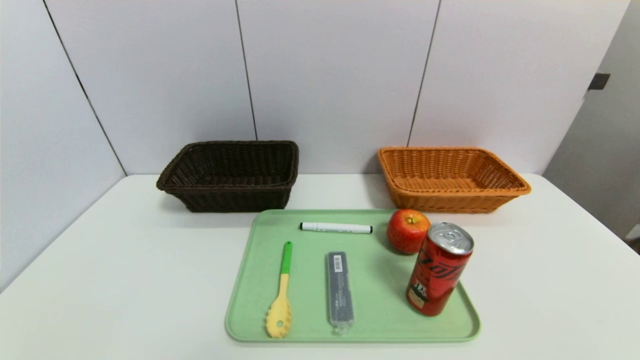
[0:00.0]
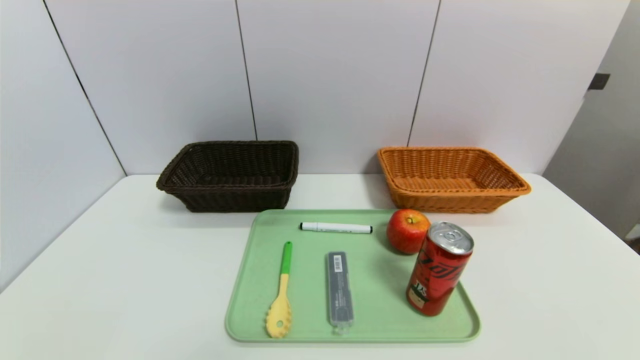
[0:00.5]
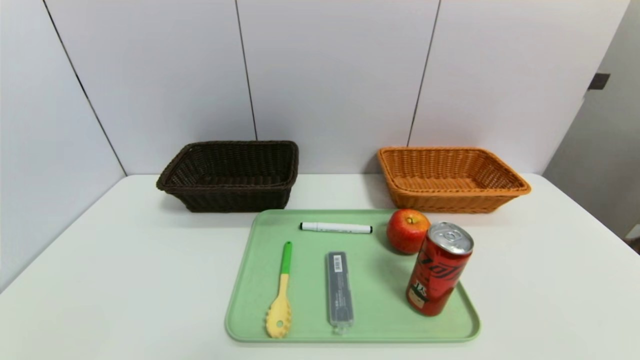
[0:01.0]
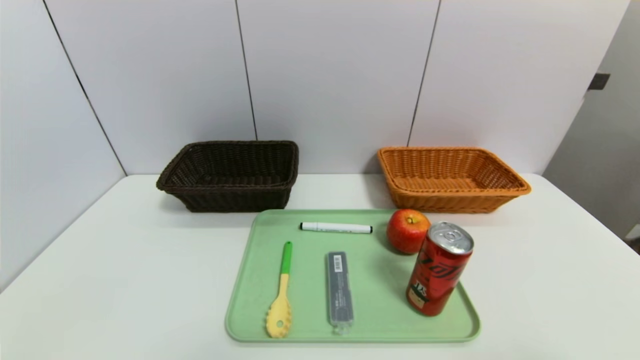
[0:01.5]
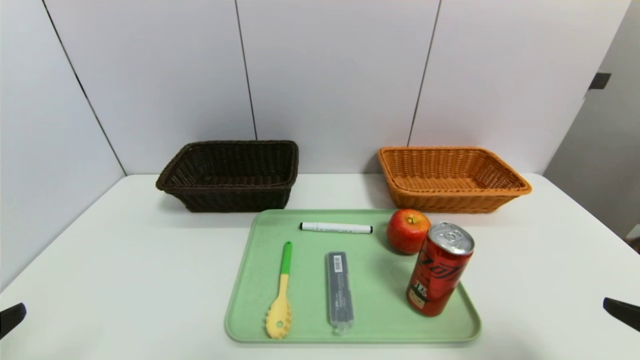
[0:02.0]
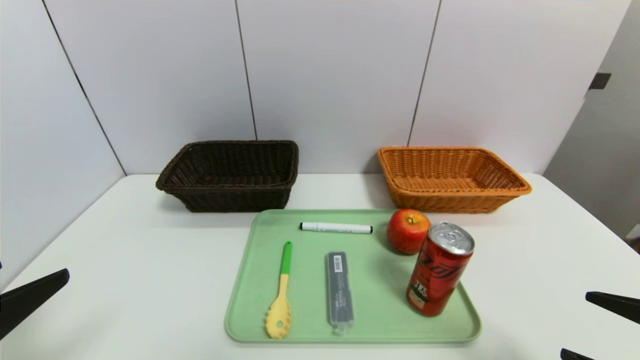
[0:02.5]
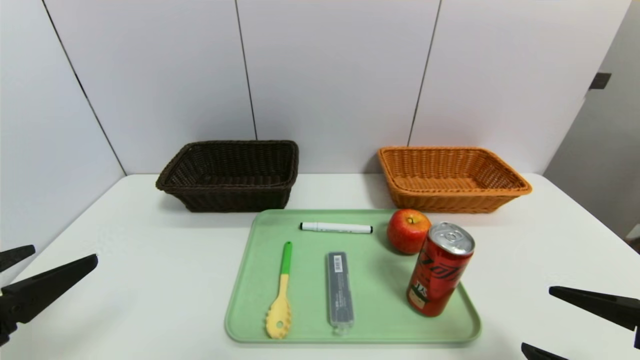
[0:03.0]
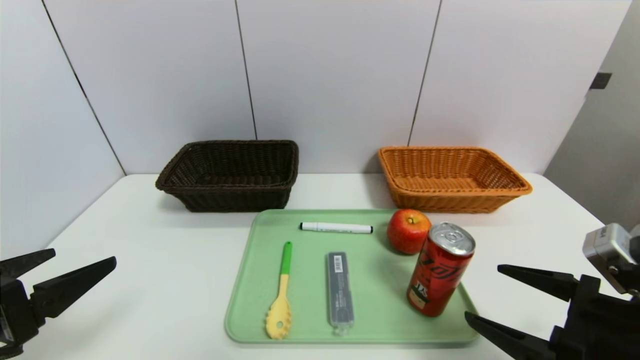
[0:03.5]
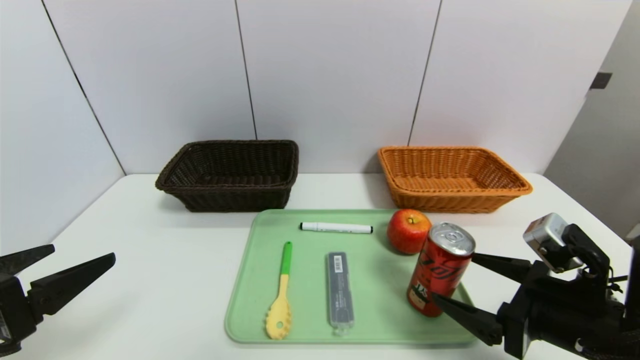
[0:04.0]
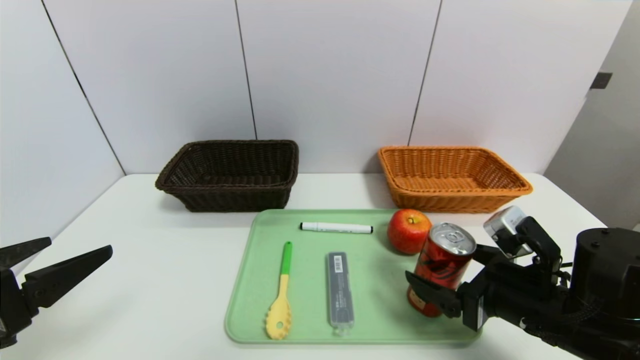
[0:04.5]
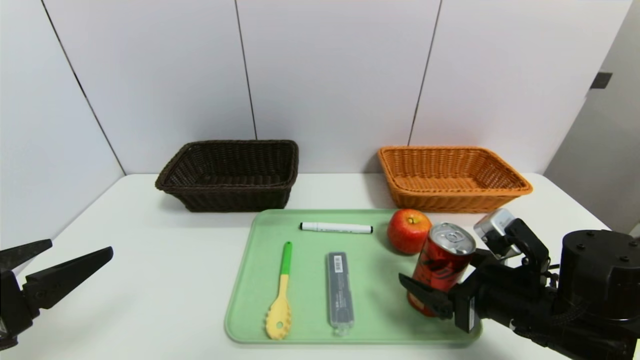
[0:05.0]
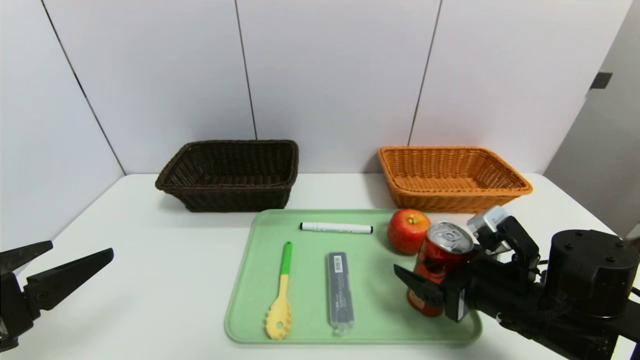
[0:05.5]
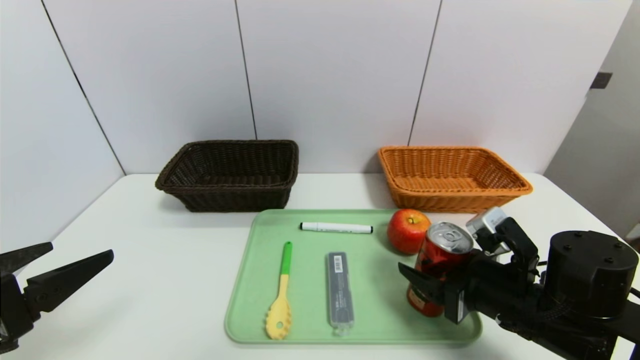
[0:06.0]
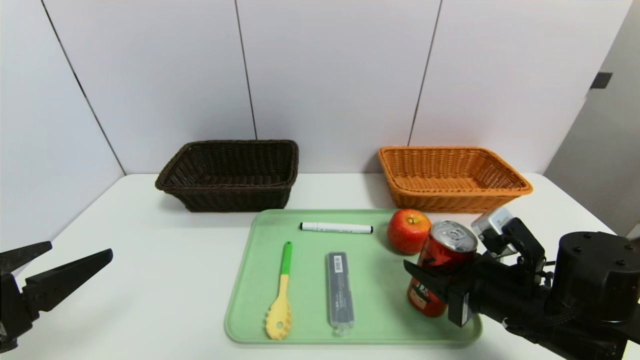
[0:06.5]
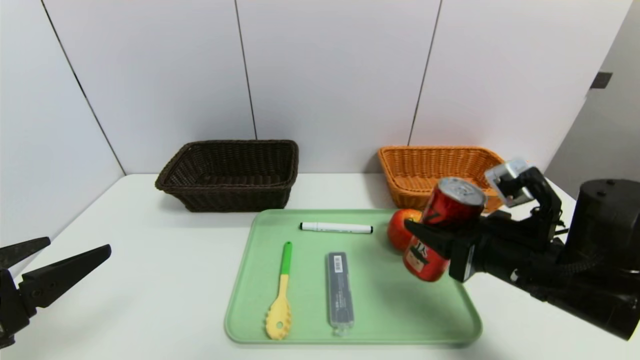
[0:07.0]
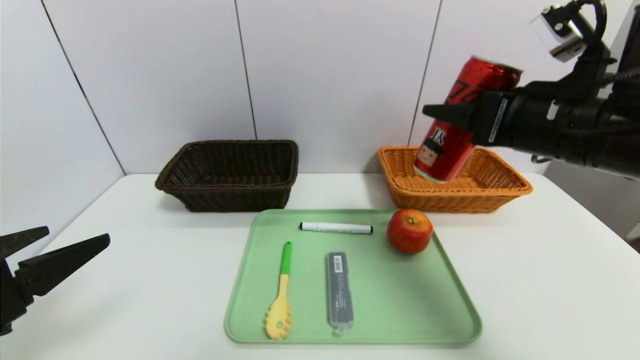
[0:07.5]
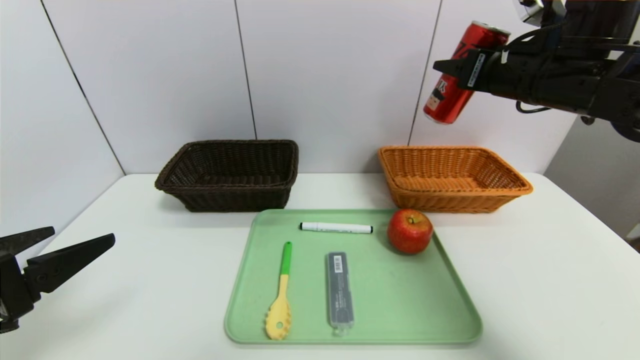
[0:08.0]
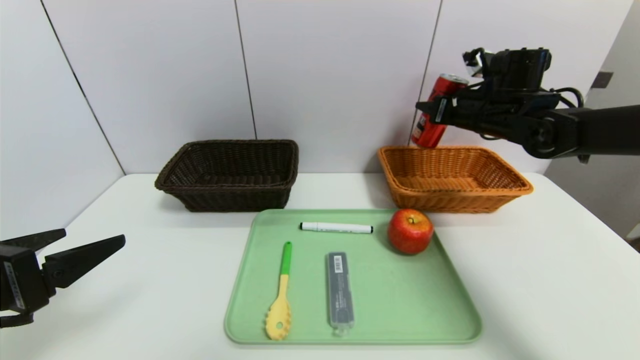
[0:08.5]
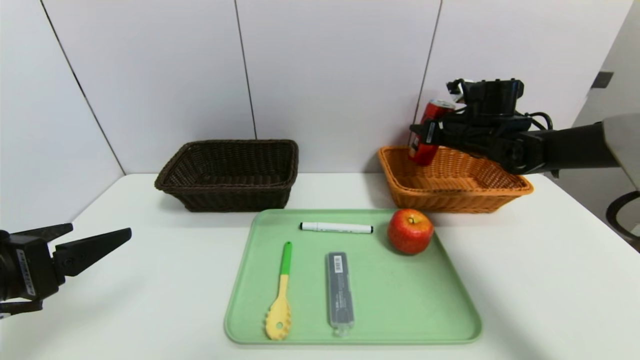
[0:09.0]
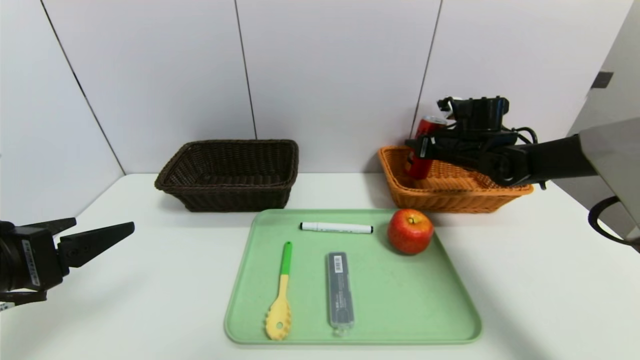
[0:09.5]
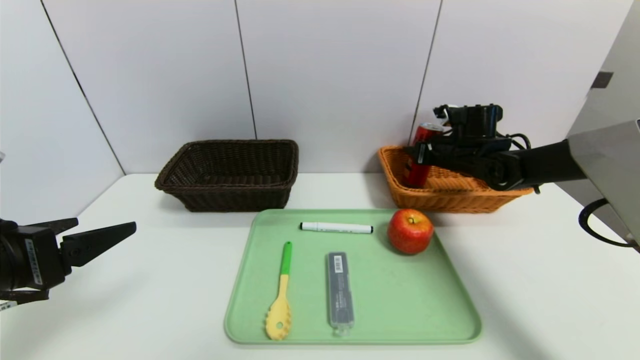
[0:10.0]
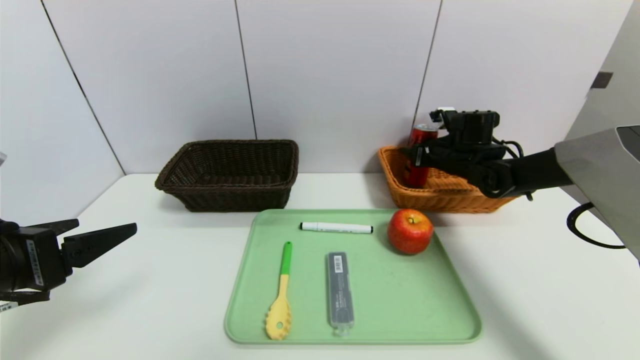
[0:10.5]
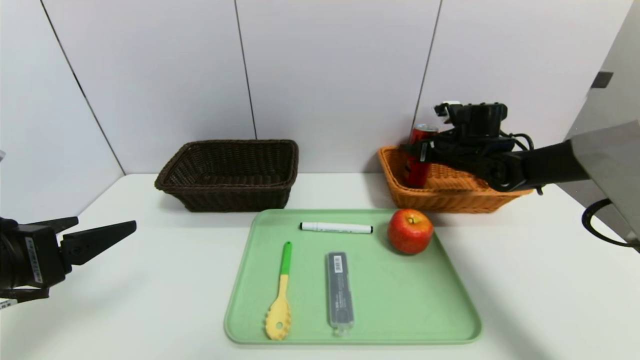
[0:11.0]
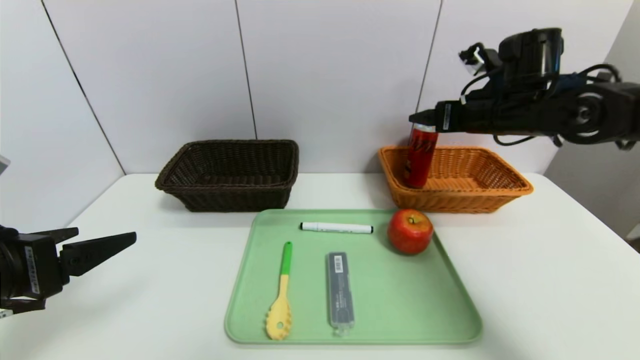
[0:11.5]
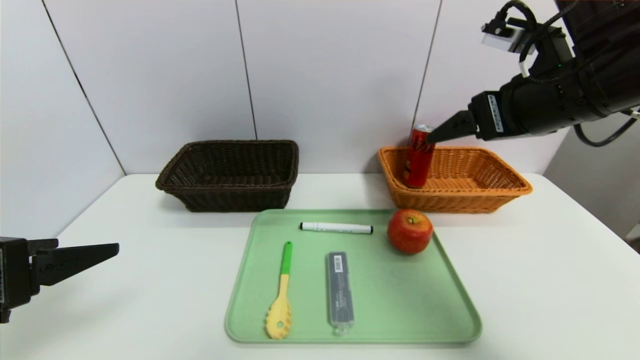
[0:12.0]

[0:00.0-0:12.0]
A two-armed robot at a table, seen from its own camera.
Task of the whole recording: place the food in the right basket with the right gripper, and place the non food items in the left basket with the left gripper.
Step, 0:00.0 to 0:11.0: Grasp the canned cola and put it in the right basket.
0:00.0 to 0:02.0: The right gripper is displaced upward and forward by about 15 cm.
0:02.0 to 0:04.0: The right gripper heads forward, downward and to the left, covering some 15 cm. Meanwhile the left gripper shifts approximately 5 cm forward.
0:04.0 to 0:06.0: The right gripper shifts by about 5 cm, and closes.
0:06.0 to 0:08.0: The right gripper travels upward and forward by roughly 25 cm, and closes its fingers.
0:08.0 to 0:10.0: The right gripper travels downward and forward by roughly 20 cm.
0:10.0 to 0:12.0: The right gripper goes roughly 25 cm backward and upward, and opens.

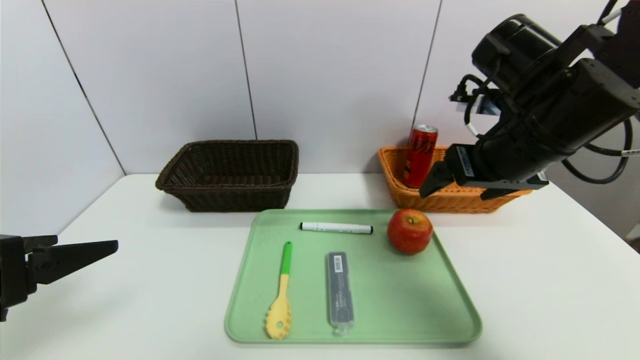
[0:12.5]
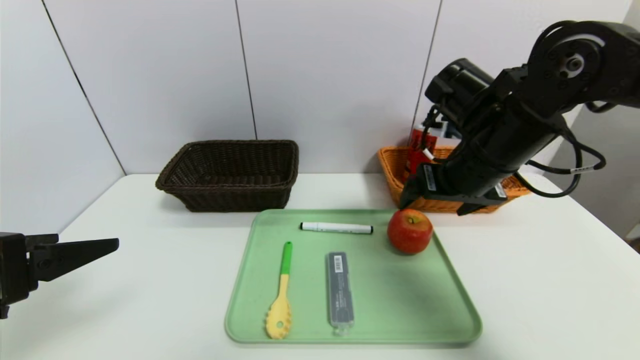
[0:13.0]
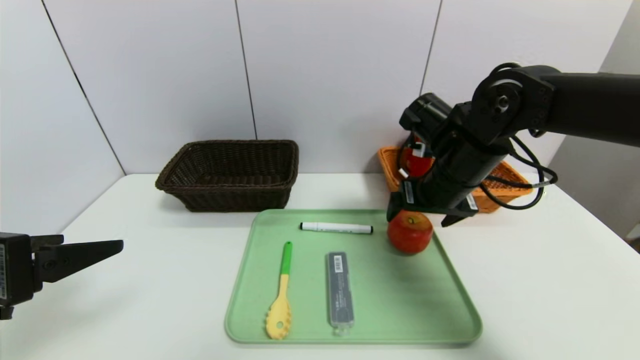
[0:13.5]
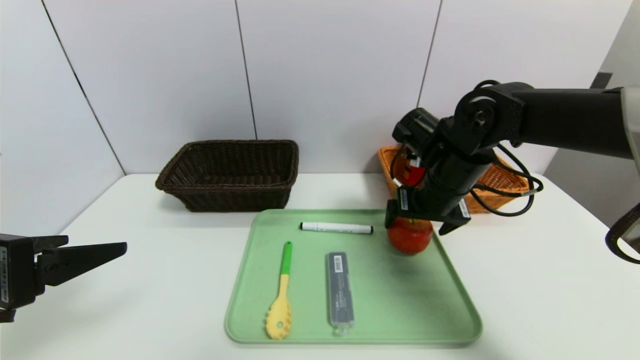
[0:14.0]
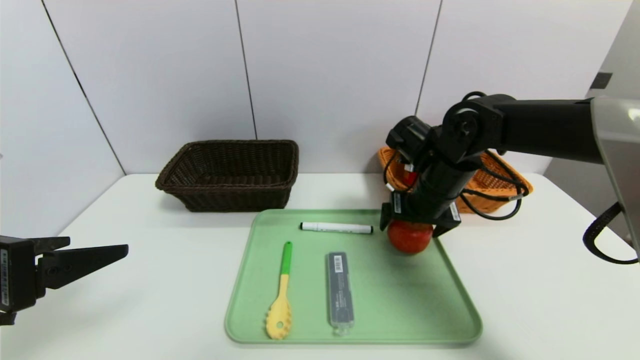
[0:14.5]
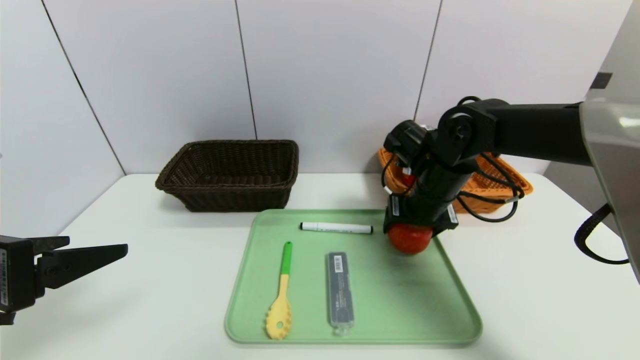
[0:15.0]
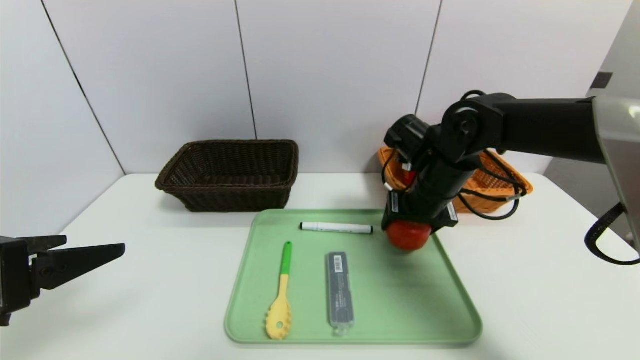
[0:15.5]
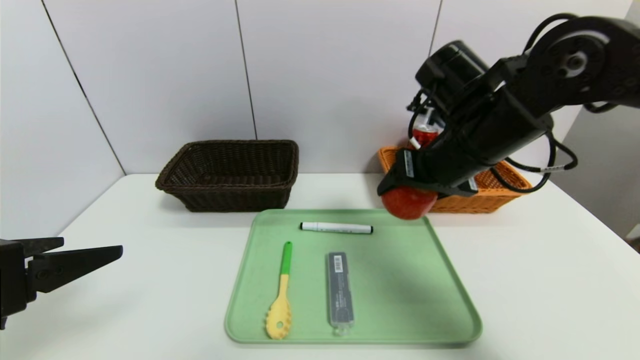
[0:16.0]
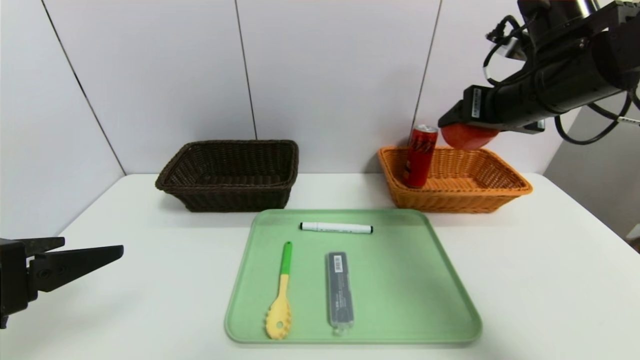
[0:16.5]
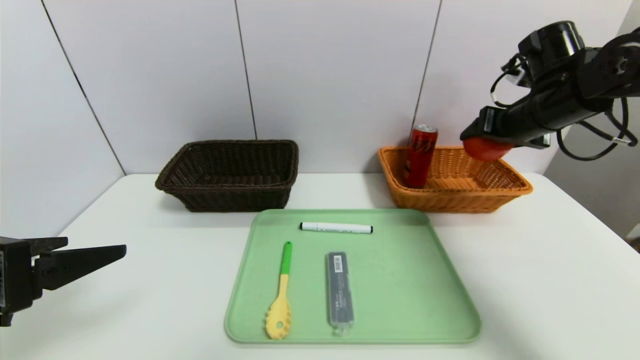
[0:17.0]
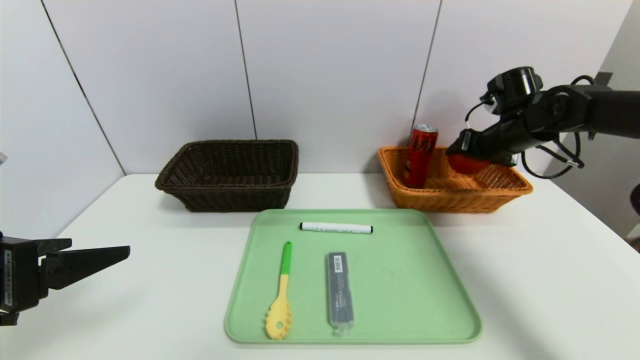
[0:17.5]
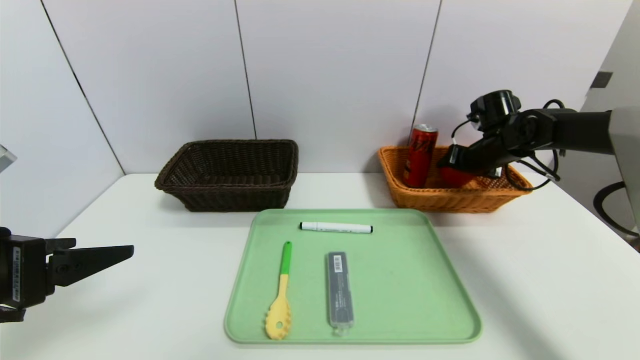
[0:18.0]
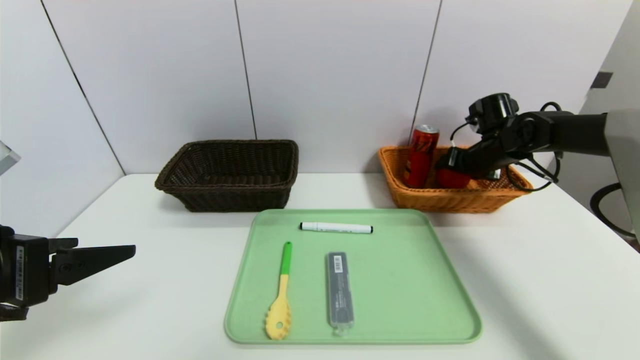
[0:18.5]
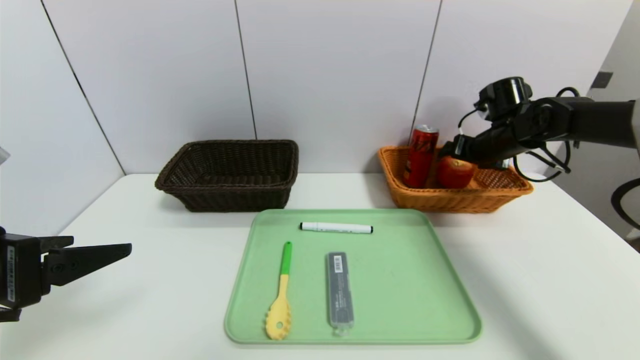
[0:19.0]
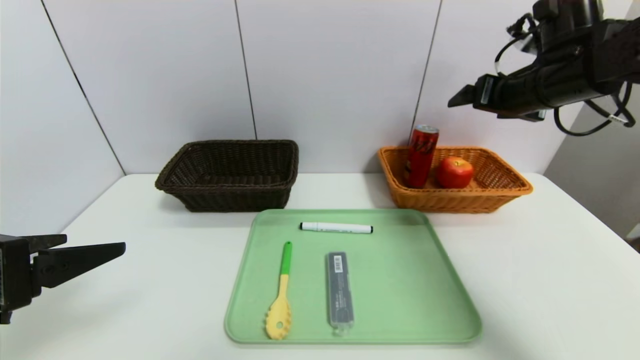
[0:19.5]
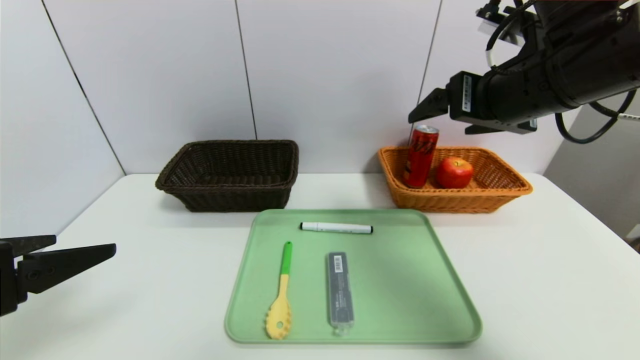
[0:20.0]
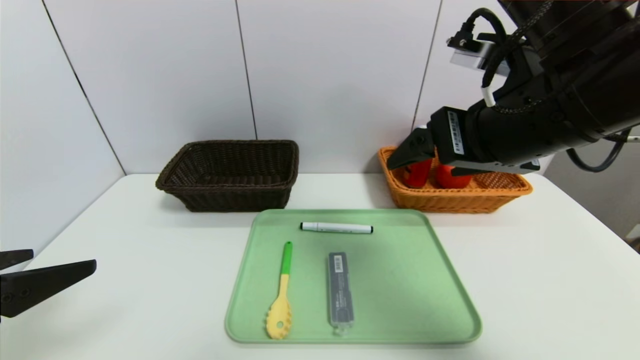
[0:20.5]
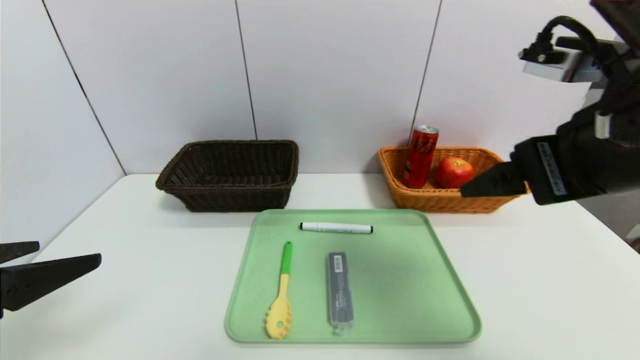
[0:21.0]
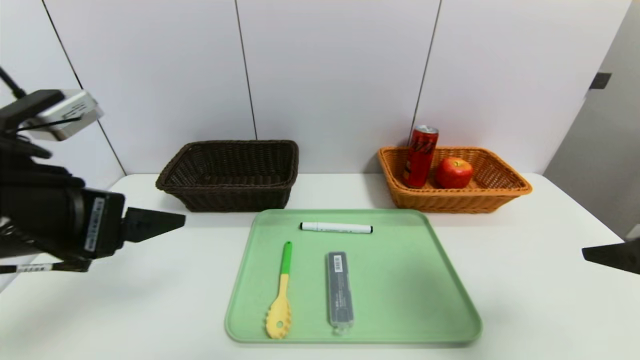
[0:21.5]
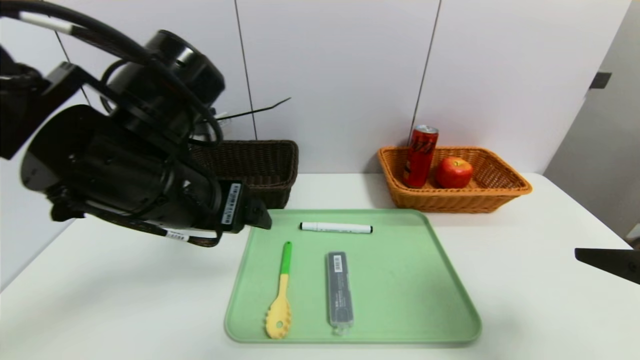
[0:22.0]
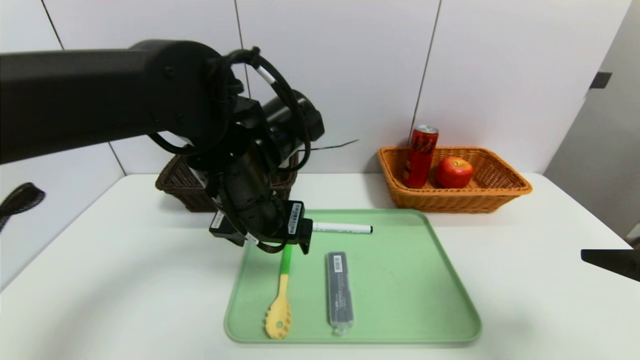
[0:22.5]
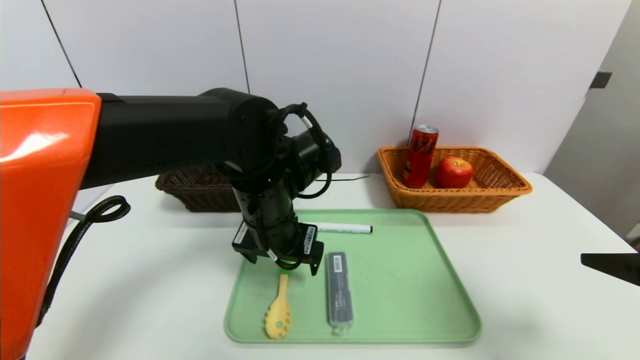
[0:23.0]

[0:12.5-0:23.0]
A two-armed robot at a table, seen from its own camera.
Task of the whole recording: place the food in the right basket with the right gripper, and place the non food items in the left basket with the left gripper.
Step, 0:12.5 to 0:19.0: Grasp the apple and put it in the right basket.
0:12.5 to 0:14.5: The right gripper travels downward and forward by roughly 15 cm.
0:14.5 to 0:16.5: The right gripper travels upward and to the right by roughly 15 cm, and closes up.
0:16.5 to 0:19.0: The right gripper travels forward, downward and to the right by some 20 cm, and opens its fingers.
0:19.0 to 0:21.0: The right gripper shifts some 30 cm backward and upward.
0:21.0 to 0:23.0: The left gripper heads to the right and forward, covering some 30 cm; the right gripper moves to the right, downward and backward, about 15 cm.
